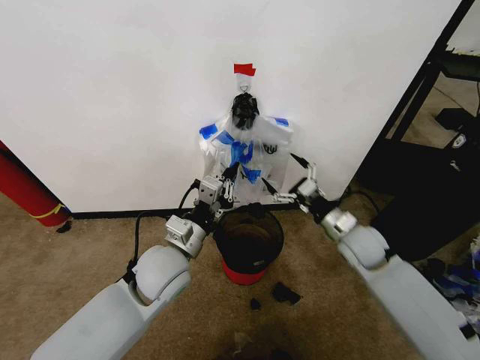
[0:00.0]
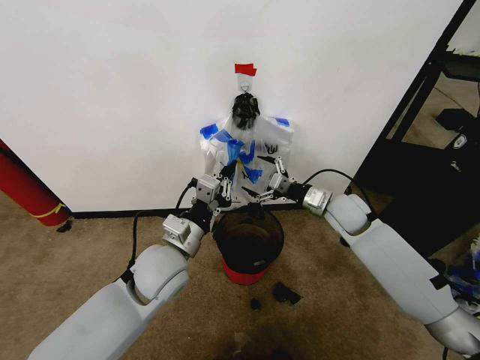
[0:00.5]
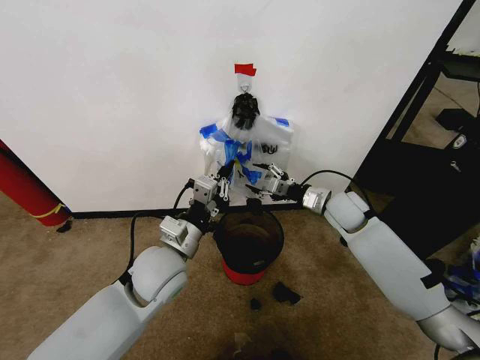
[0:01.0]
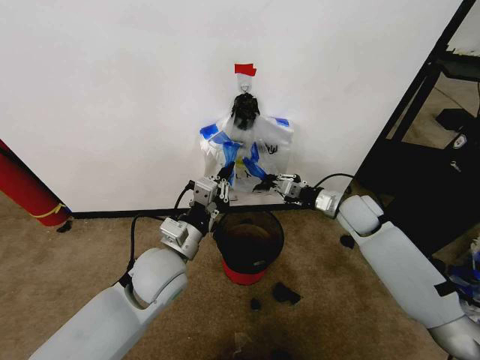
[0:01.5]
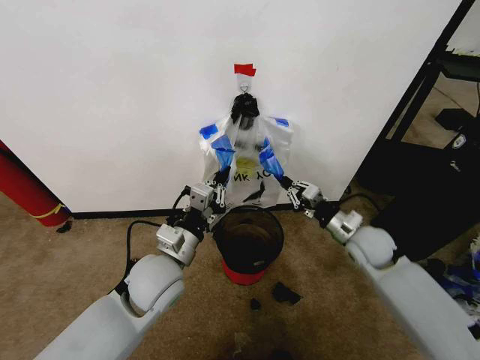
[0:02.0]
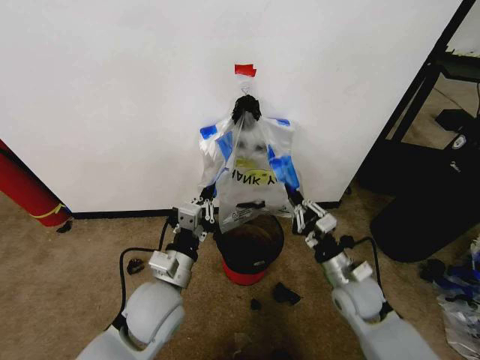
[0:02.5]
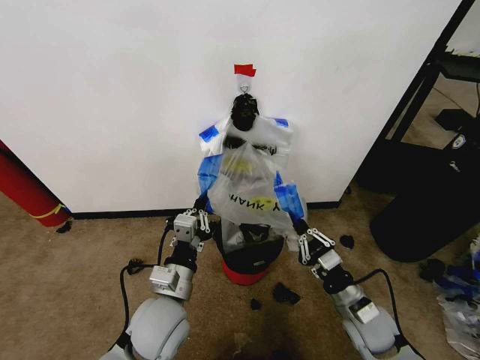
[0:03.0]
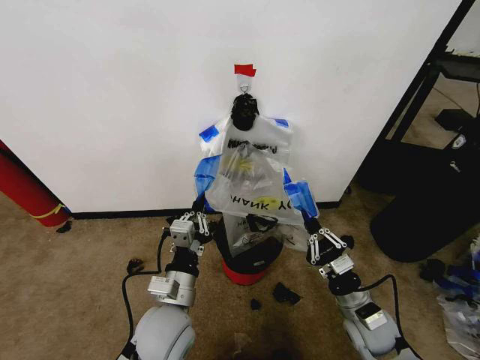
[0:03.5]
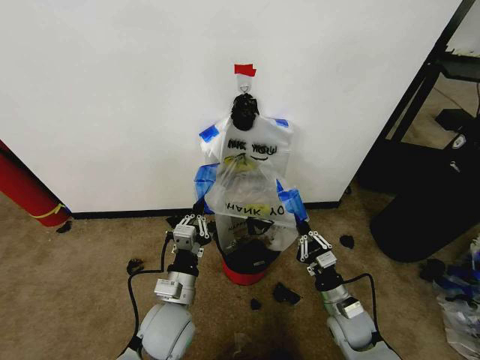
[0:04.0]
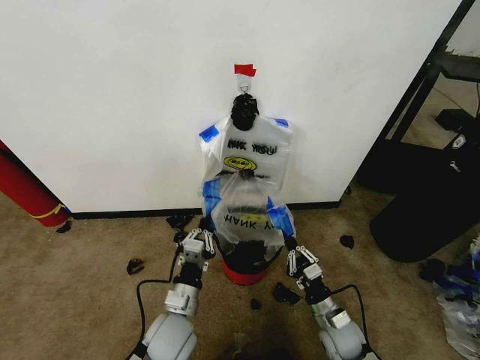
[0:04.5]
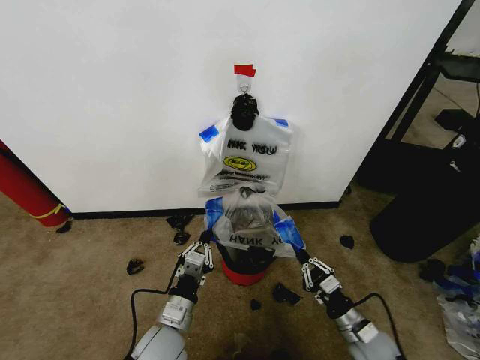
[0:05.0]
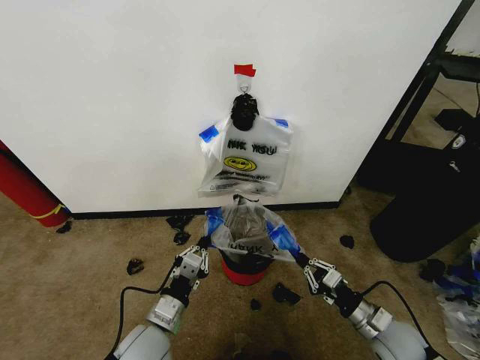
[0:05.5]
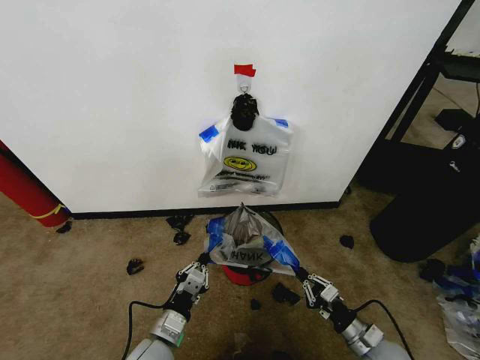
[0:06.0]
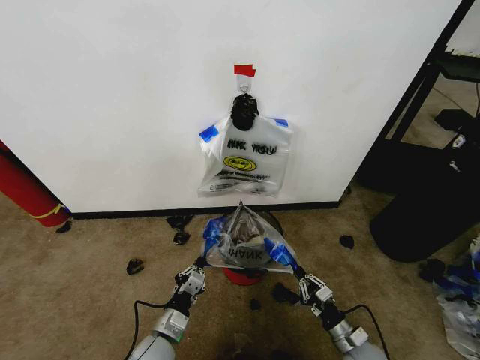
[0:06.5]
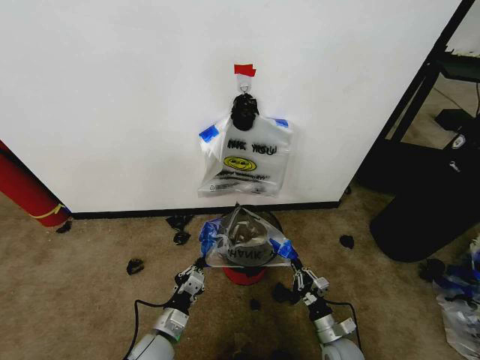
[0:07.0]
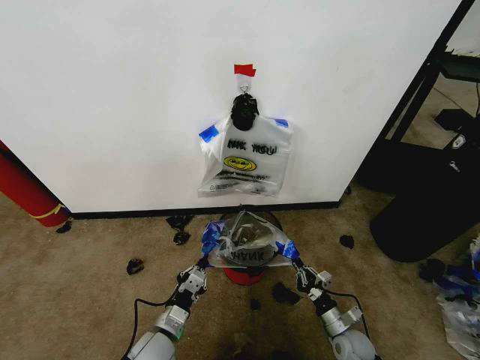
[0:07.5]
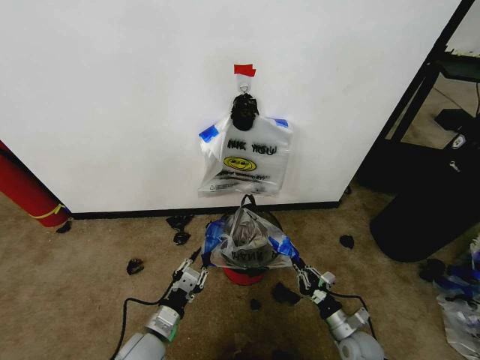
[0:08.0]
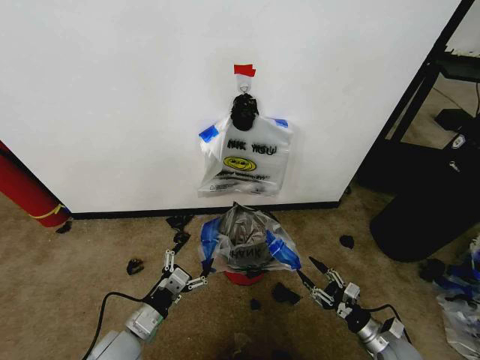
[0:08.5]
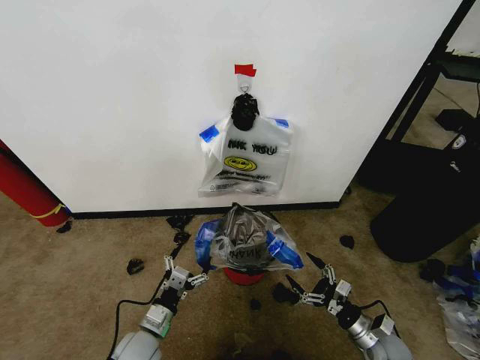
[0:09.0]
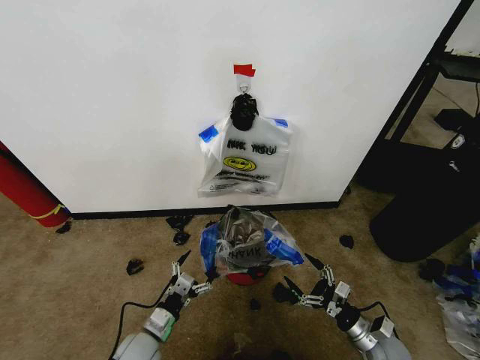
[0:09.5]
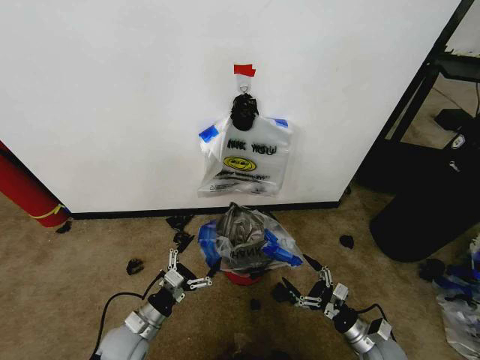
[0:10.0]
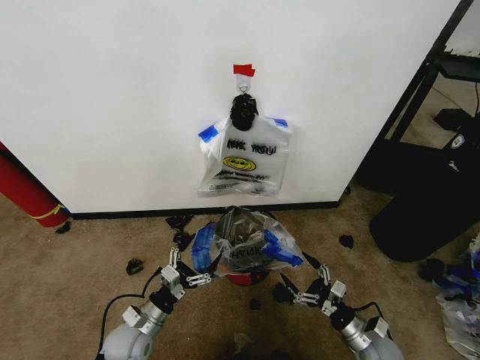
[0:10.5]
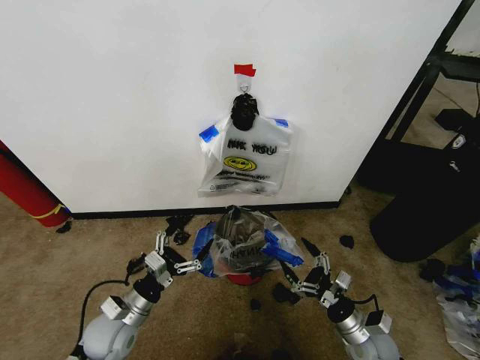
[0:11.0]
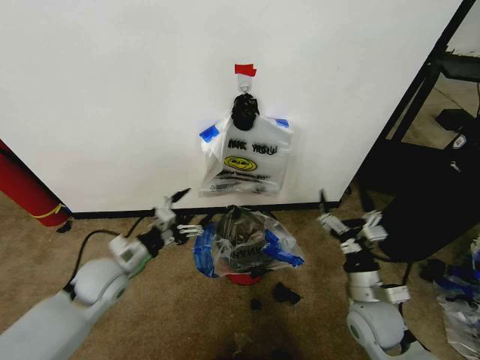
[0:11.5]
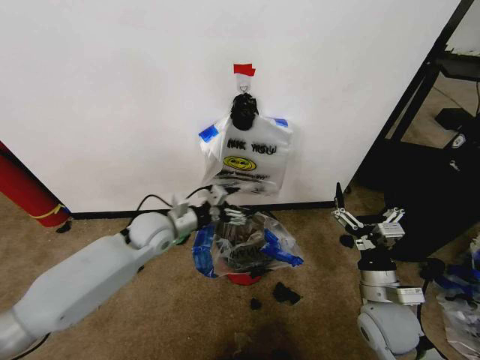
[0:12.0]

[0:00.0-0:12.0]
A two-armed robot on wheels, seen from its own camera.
Task of the whole recording: Pick up the garbage bag from the wall and place it over the trash bin.
0.0 to 2.0 s: The right gripper reaches about 10 cm forward, then returns, and closes its fingers.
2.0 to 4.0 s: The right gripper shifts roughly 20 cm downward and backward. Meanwhile the left gripper heads downward and backward, covering some 10 cm.
4.0 to 6.0 s: The right gripper goes approximately 10 cm backward and to the right. Meanwhile the left gripper heads downward, covering approximately 10 cm.
6.0 to 8.0 s: The right gripper is displaced downward by roughly 5 cm.
8.0 to 10.0 s: The right gripper opens. Meanwhile the left gripper heads to the left, covering some 5 cm, and opens its fingers.
10.0 to 12.0 s: The left gripper is displaced forward and upward by about 25 cm. The right gripper heads upward, covering roughly 20 cm.

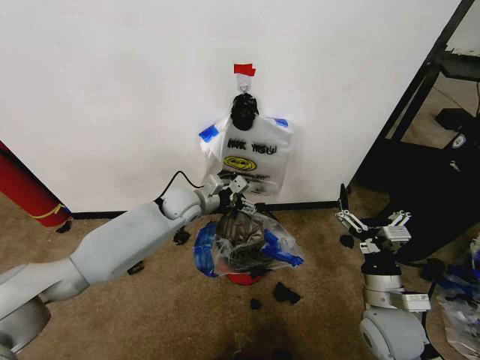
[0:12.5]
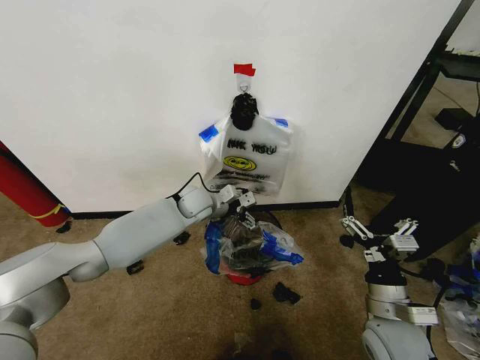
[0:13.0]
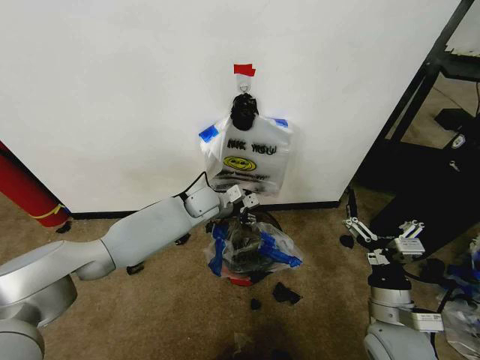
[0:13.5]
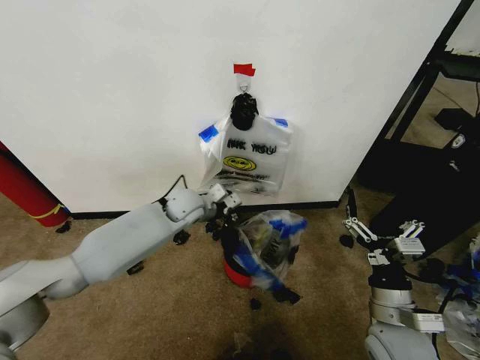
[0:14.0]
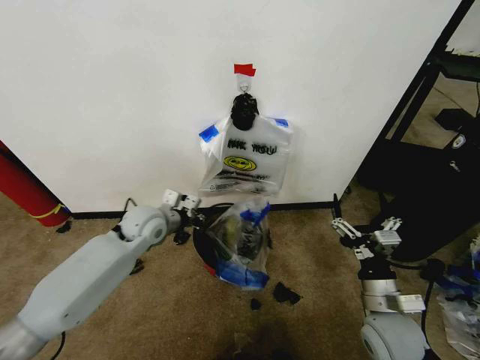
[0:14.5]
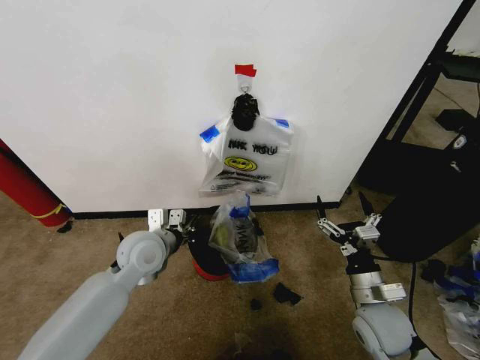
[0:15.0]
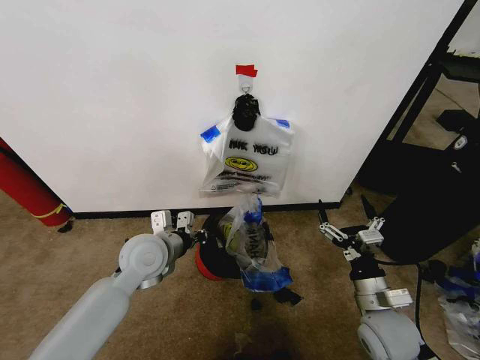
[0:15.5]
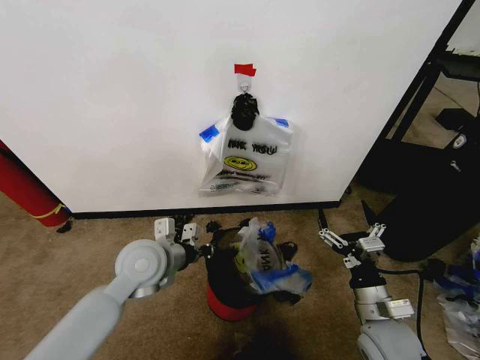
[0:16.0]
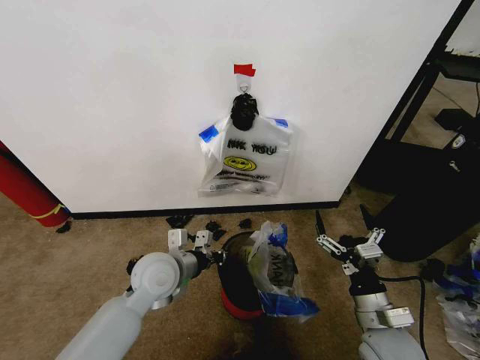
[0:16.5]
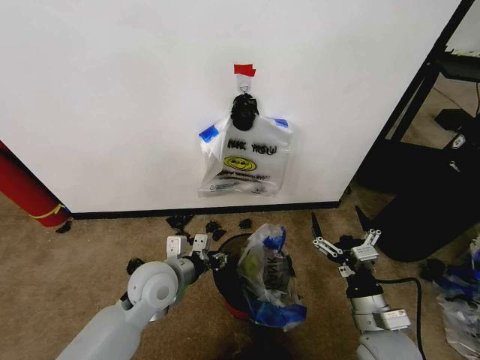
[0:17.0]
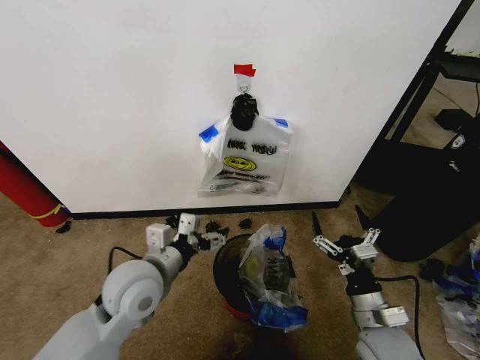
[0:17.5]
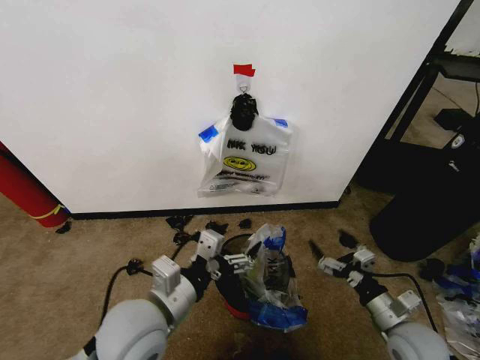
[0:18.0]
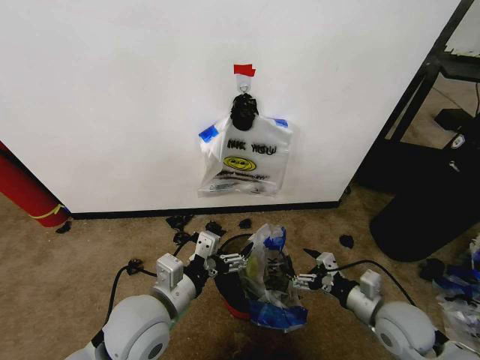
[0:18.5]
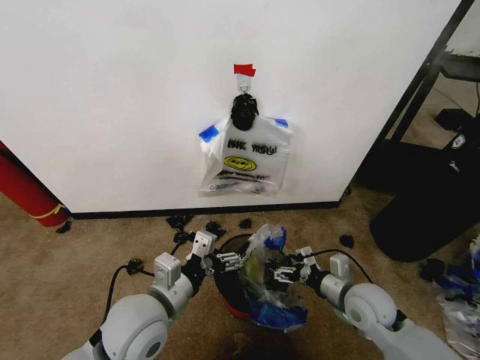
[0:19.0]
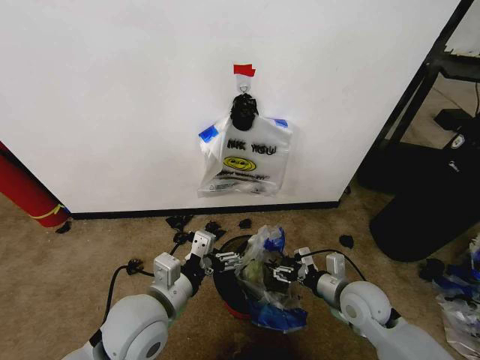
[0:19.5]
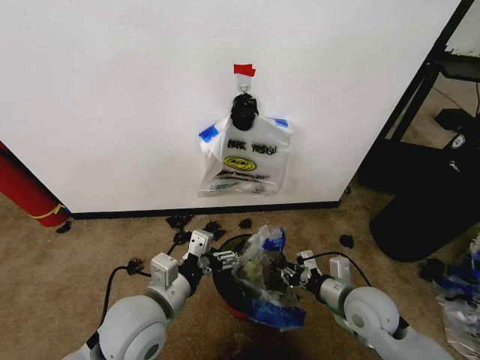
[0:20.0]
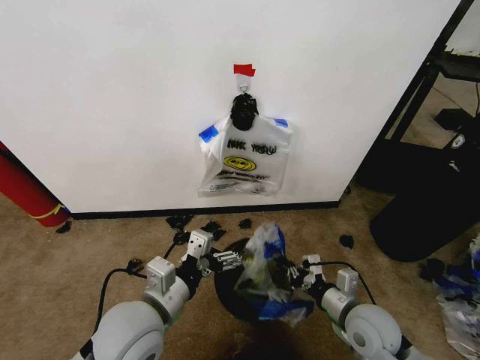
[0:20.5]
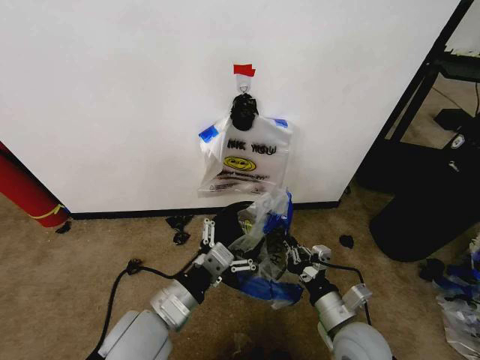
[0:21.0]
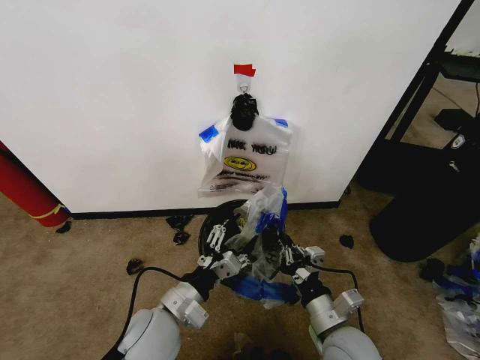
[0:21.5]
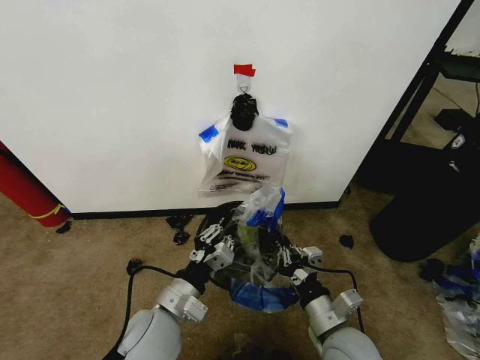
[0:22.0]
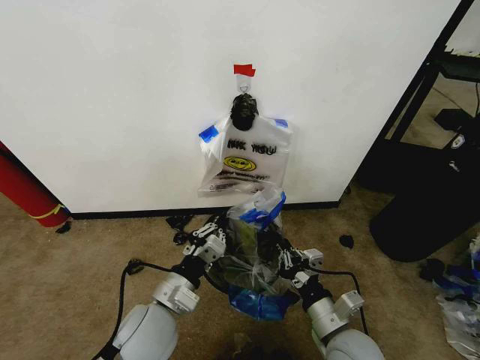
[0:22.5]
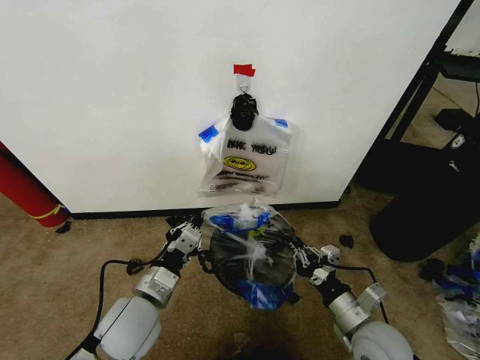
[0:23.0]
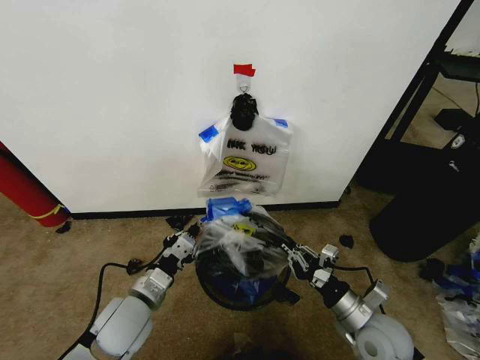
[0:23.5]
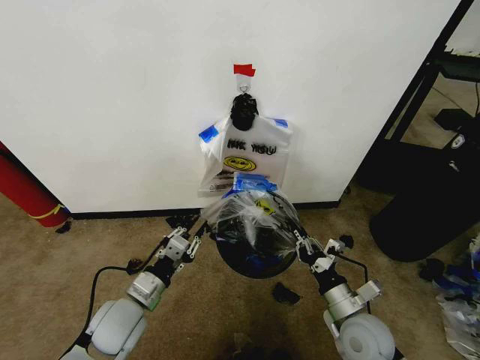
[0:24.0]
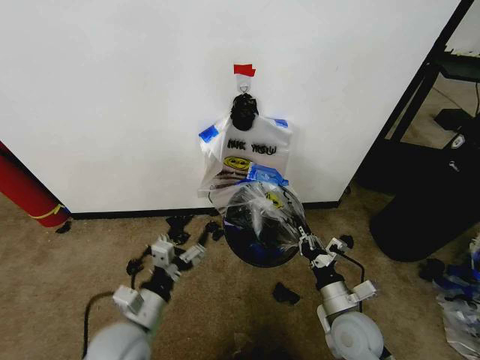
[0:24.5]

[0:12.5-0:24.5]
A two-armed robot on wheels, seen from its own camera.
Task of the whole recording: Pick up the garbage bag from the wall and place it over the trash bin.
12.5 to 14.5 s: The left gripper travels to the left and backward by some 10 cm, and closes its fingers.
14.5 to 16.5 s: The left gripper heads backward and to the right, covering about 15 cm.
16.5 to 18.5 s: The right gripper heads to the right, covering roughly 5 cm, while the left gripper heads backward, covering roughly 10 cm, and opens its fingers.
18.5 to 20.5 s: The right gripper travels to the left by some 5 cm, and closes up.
20.5 to 22.5 s: The left gripper moves downward, roughly 5 cm, and closes, while the right gripper shifts about 5 cm to the left.
22.5 to 24.5 s: The left gripper opens its fingers. Meanwhile the right gripper shifts by roughly 5 cm.

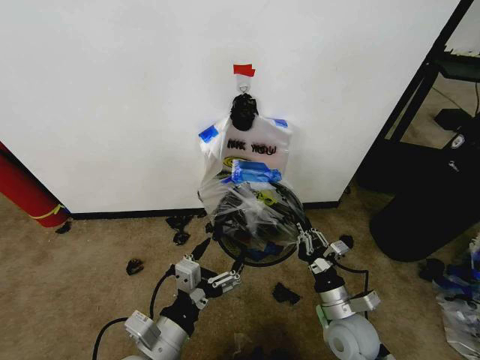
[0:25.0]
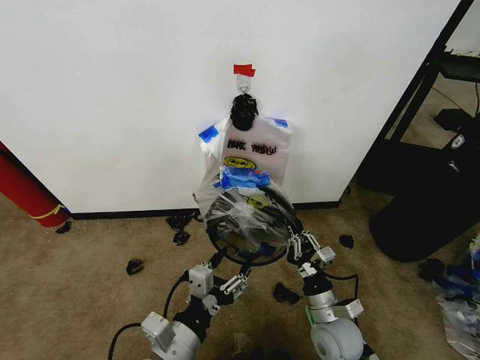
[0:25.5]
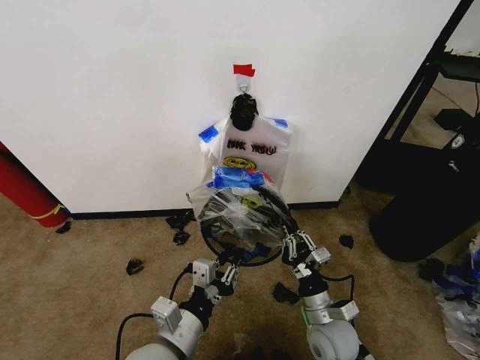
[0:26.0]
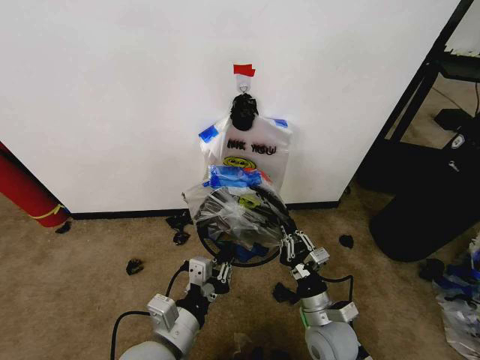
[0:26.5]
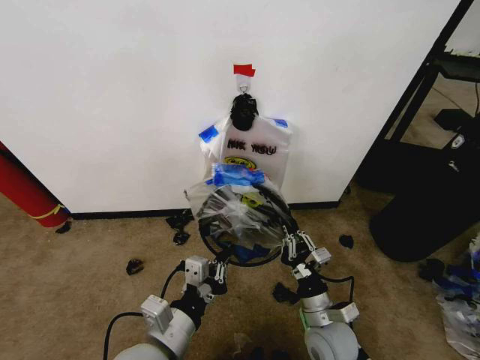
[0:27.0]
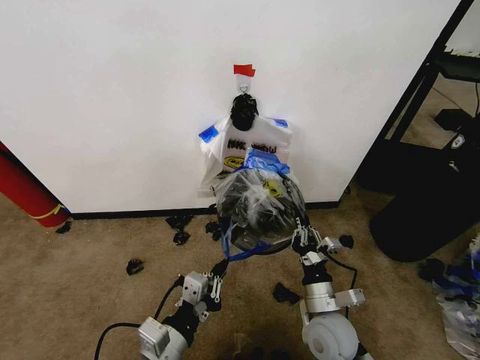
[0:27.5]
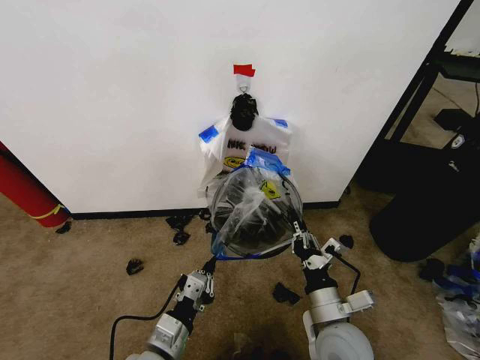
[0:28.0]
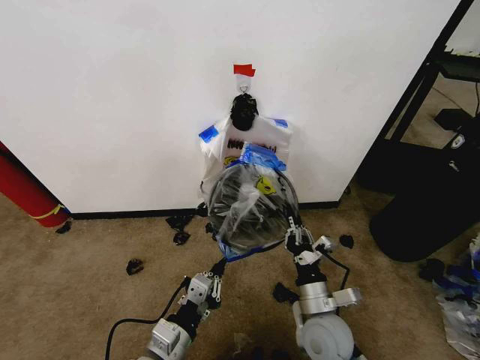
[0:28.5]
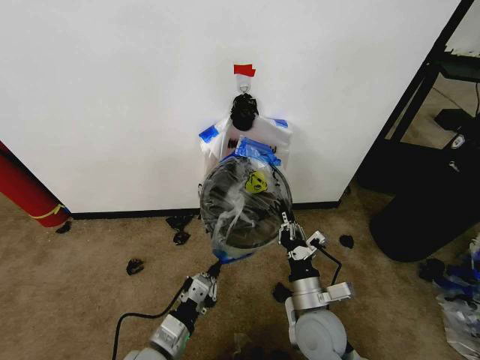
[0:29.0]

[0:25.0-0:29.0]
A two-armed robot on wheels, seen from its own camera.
Task of the whole recording: Pick up the garbage bag from the wall and place it over the trash bin.
25.0 to 27.0 s: The left gripper closes up.
27.0 to 29.0 s: The left gripper is displaced downward by approximately 10 cm. Meanwhile the right gripper moves roughly 5 cm.
